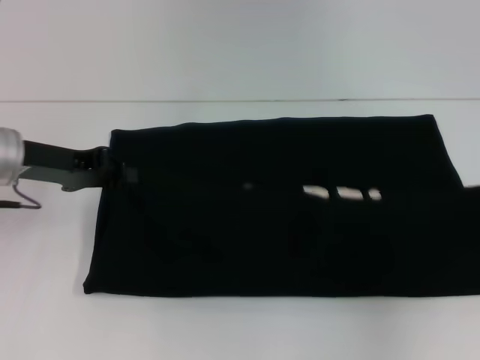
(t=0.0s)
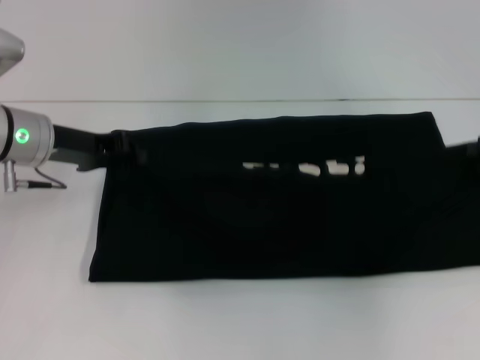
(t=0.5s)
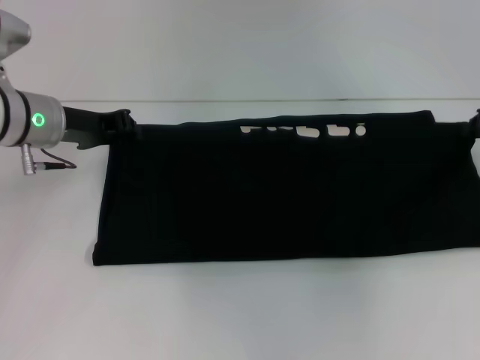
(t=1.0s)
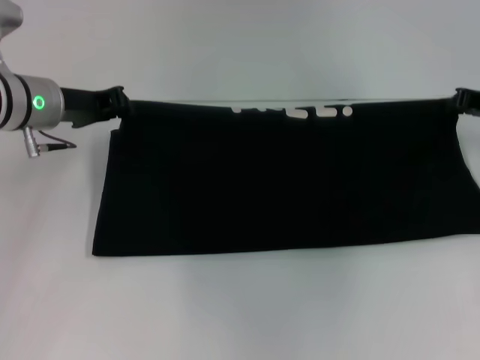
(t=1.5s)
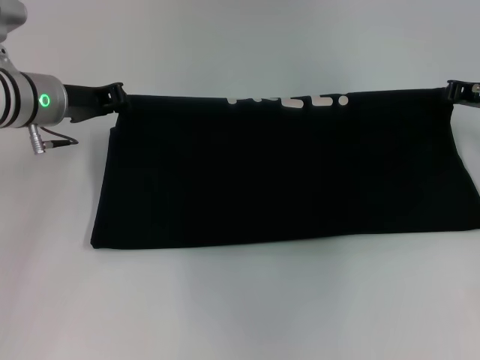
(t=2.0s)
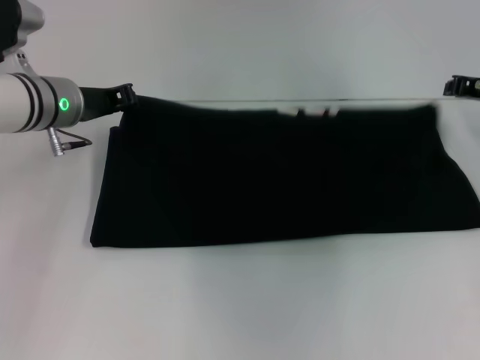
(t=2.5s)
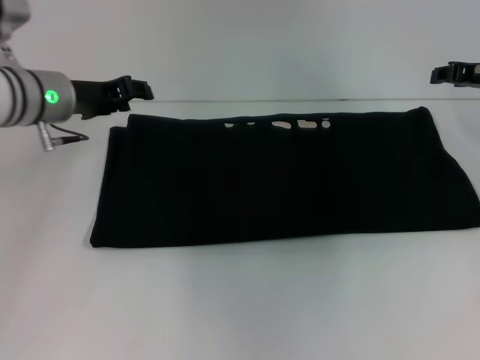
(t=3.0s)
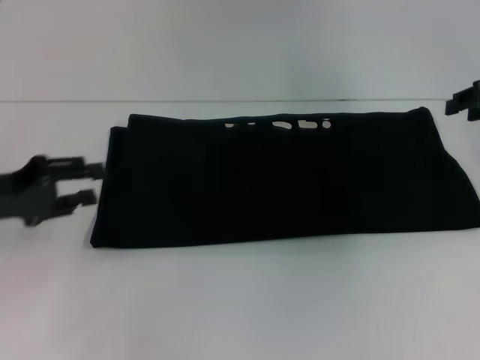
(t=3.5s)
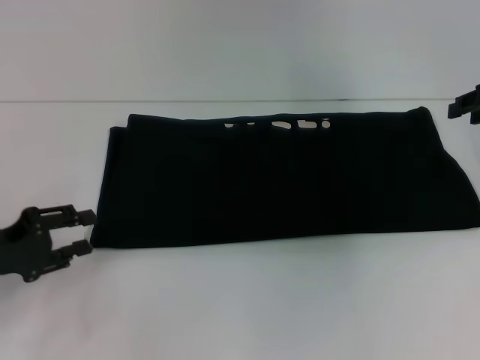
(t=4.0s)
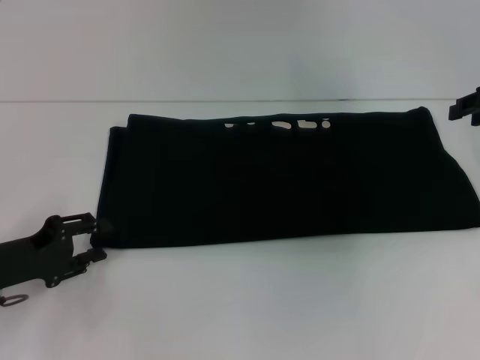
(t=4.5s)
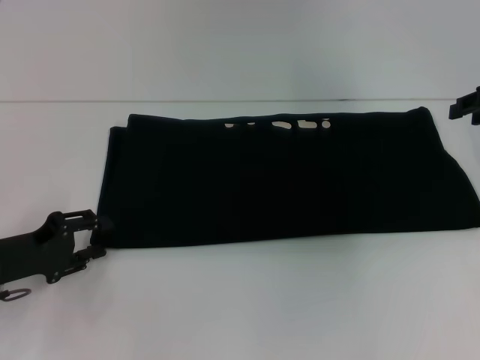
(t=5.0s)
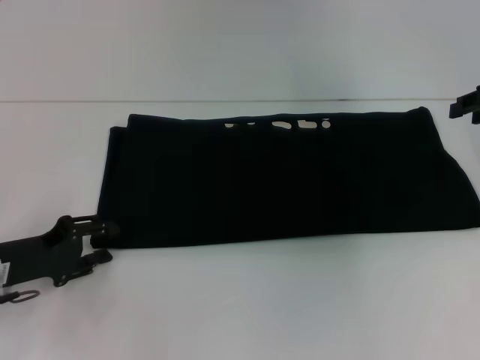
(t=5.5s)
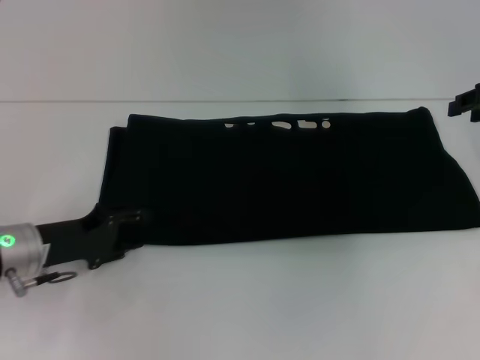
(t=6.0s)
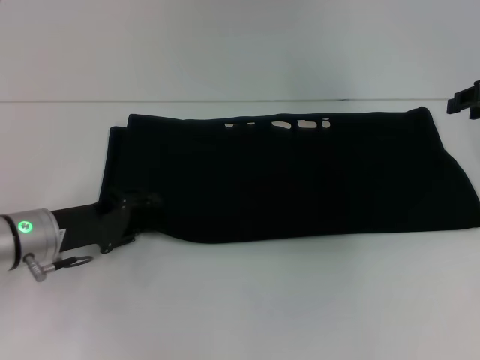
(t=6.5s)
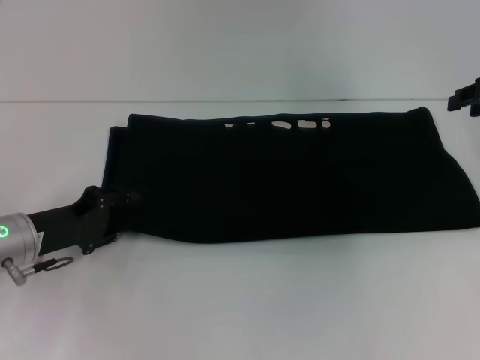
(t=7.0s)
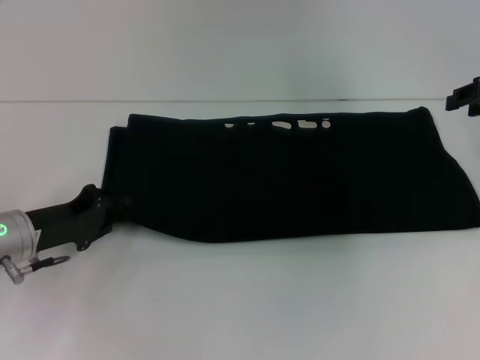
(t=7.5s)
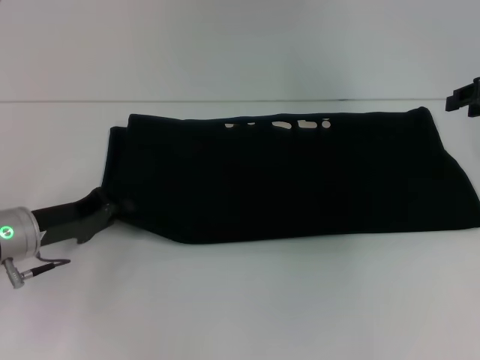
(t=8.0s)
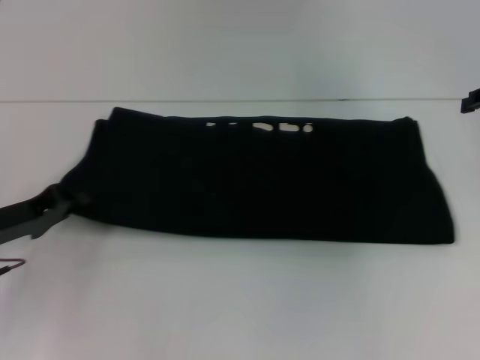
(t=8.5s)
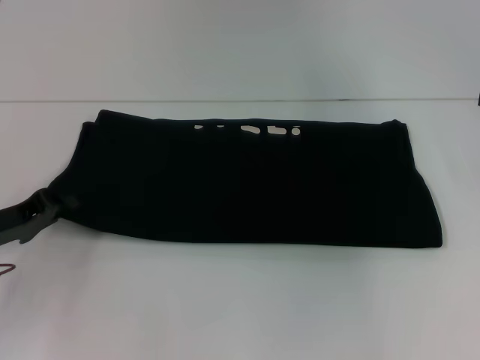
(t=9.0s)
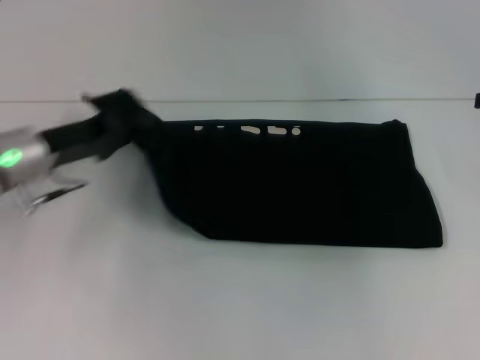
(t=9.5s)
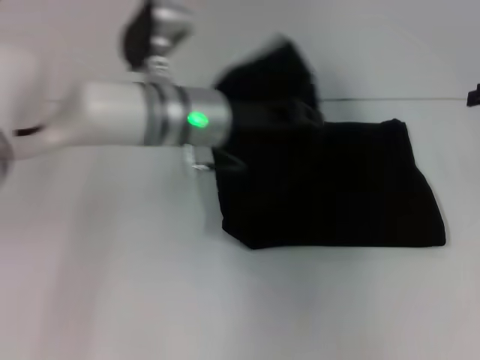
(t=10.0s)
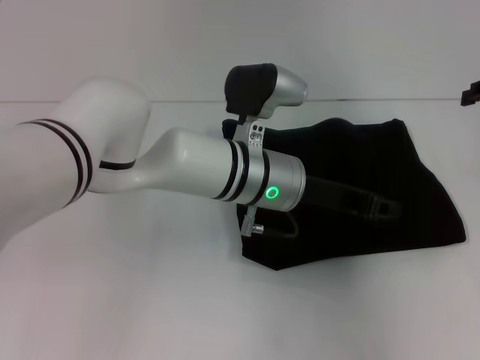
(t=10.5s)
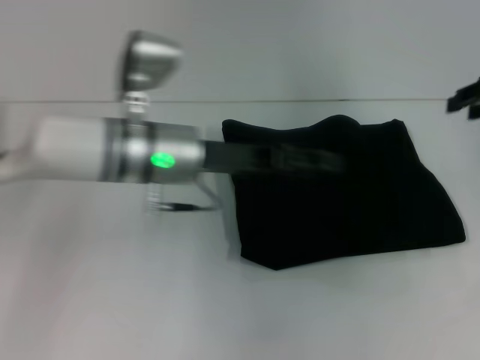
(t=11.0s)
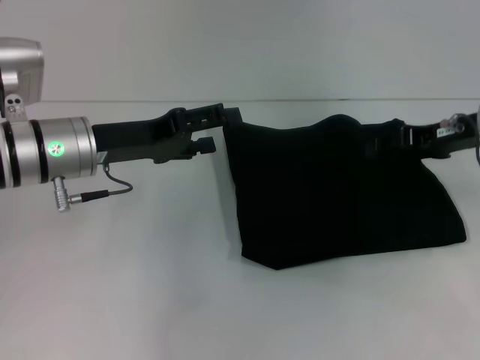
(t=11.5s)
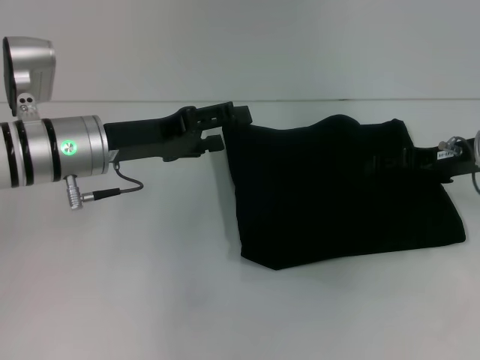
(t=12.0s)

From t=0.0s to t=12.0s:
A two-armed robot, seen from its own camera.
Step, from t=0.0s to t=3.0s: Fold the clothes with your right hand.
Step, from t=0.0s to t=10.5s: Fold the clothes with your left hand.
From t=0.0s to t=2.0s: The right gripper moves forward and to the left, about 15 cm; the left gripper shifts some 5 cm forward.
From t=2.0s to t=4.0s: The left gripper is displaced backward, to the left and downward by roughly 20 cm, and opens. Meanwhile the right gripper shifts by roughly 5 cm, and opens up.
From t=4.0s to t=6.0s: The left gripper goes about 5 cm to the right.
From t=6.0s to t=8.0s: The left gripper closes its fingers.
From t=8.0s to t=10.0s: The left gripper is displaced to the right, upward and forward by about 25 cm.
From t=10.0s to t=12.0s: The left gripper moves to the left, approximately 10 cm, and opens up; the right gripper moves downward and to the left, approximately 10 cm.

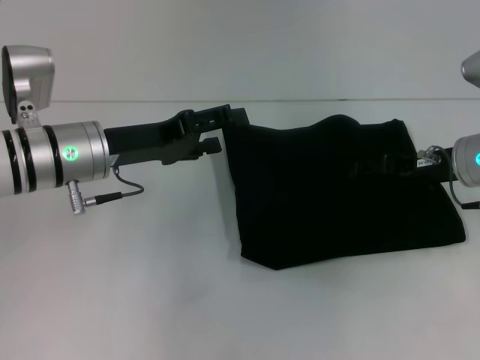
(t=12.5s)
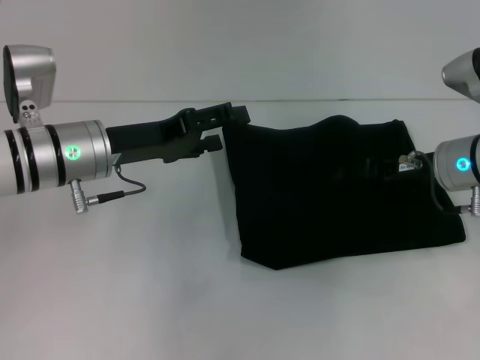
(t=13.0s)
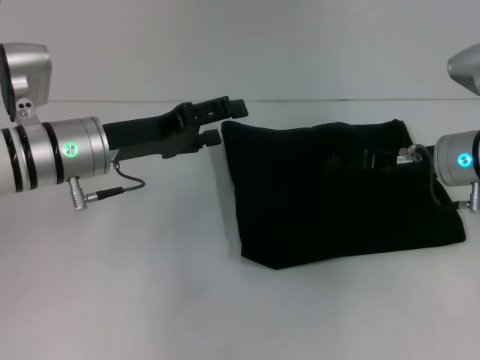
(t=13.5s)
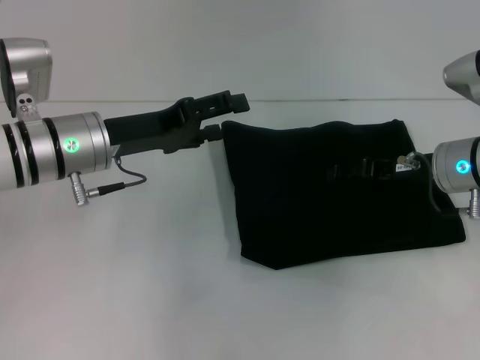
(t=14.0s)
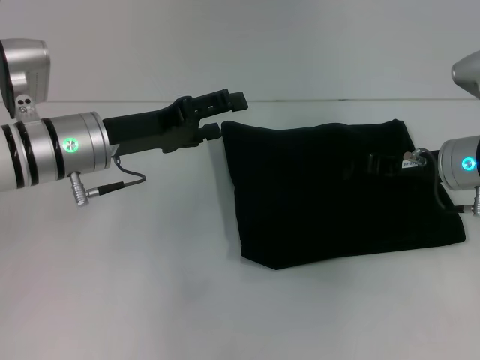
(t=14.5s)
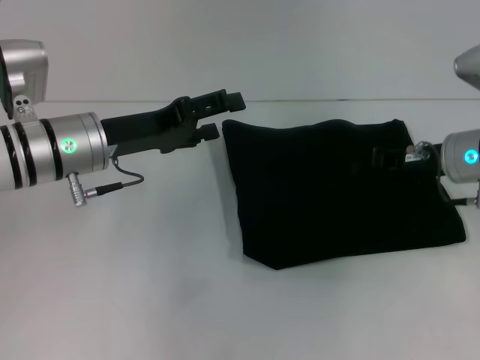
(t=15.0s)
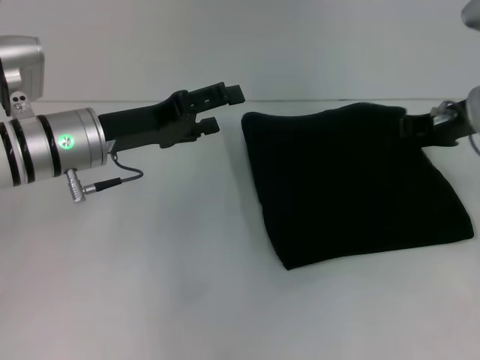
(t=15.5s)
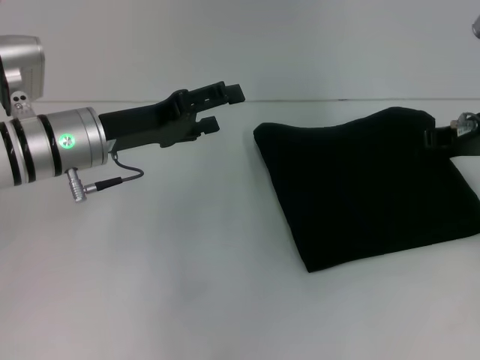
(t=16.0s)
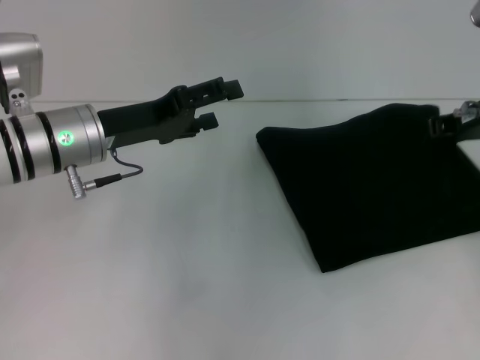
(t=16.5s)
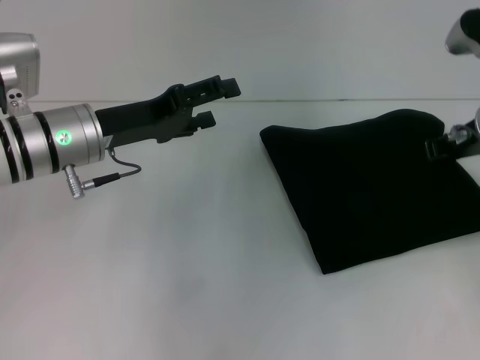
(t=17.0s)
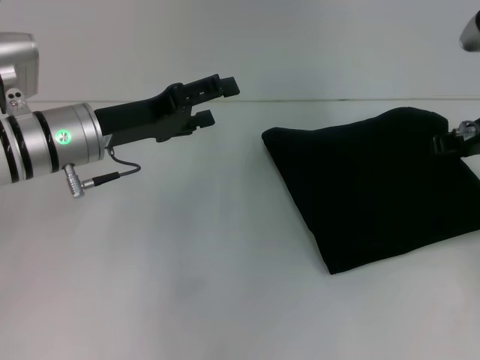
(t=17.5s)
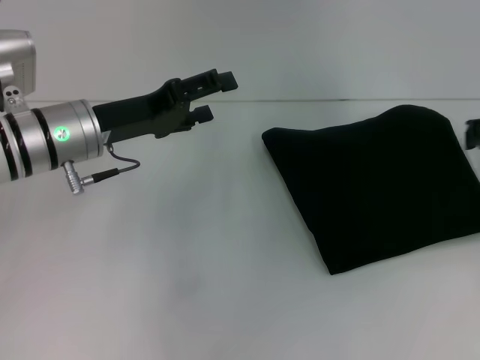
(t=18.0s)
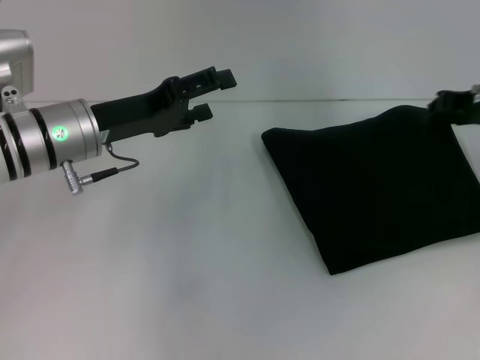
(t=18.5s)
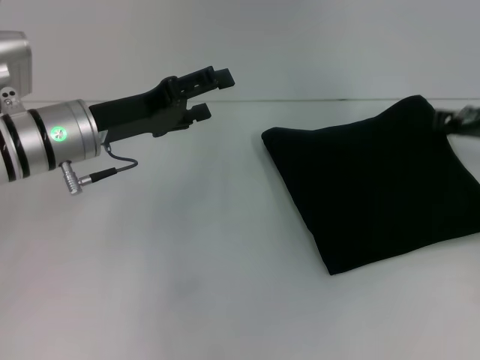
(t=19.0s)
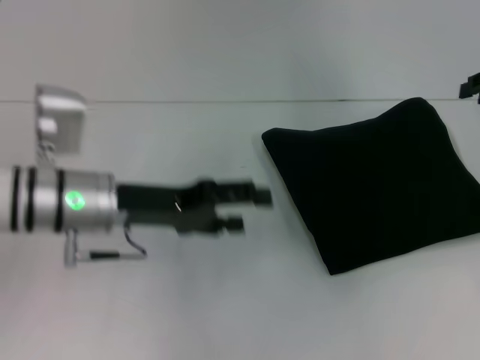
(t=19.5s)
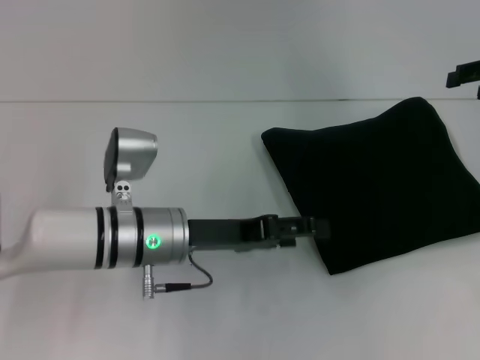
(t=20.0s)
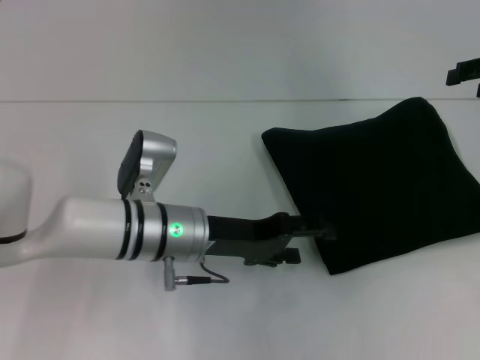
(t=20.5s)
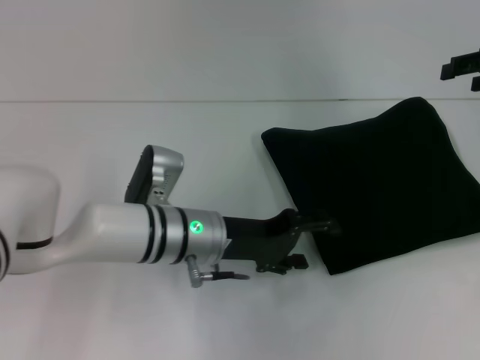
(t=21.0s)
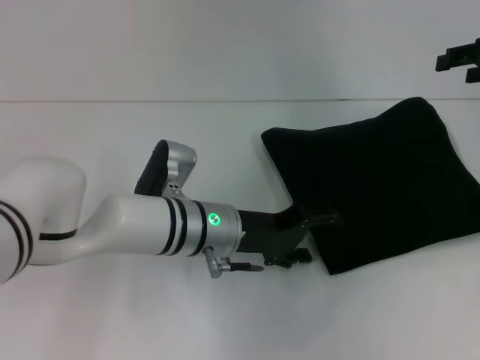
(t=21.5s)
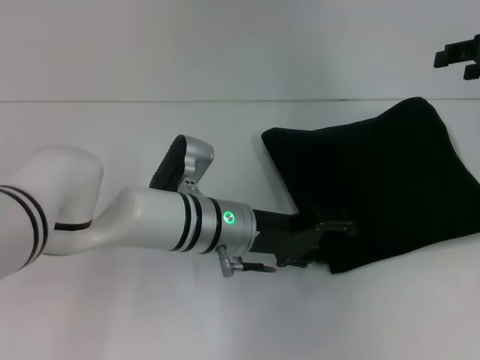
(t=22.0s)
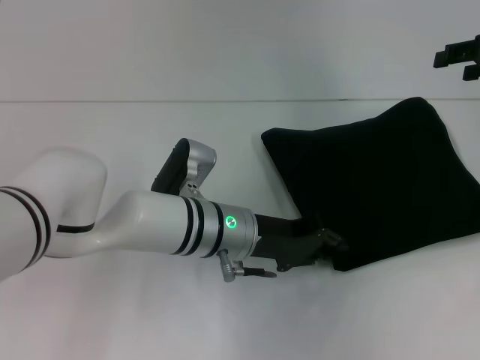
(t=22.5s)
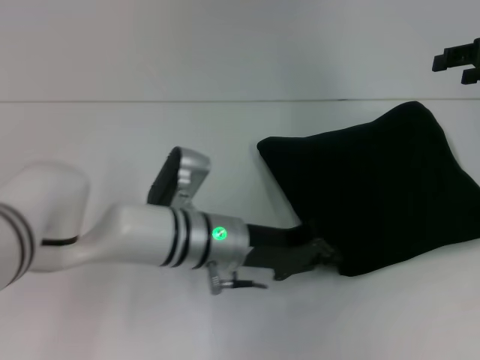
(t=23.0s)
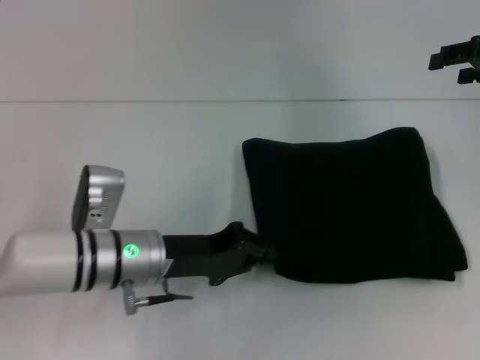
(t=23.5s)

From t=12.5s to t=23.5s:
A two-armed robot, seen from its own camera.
From t=12.5s to t=14.5s: The right gripper closes up.
From t=14.5s to t=16.0s: The right gripper travels upward by about 5 cm.
From t=16.0s to t=18.0s: The grippers make only small movements.
From t=18.0s to t=20.0s: The left gripper goes approximately 10 cm to the right, downward and backward; the right gripper is displaced upward by roughly 5 cm, and opens its fingers.
From t=20.0s to t=21.5s: The left gripper is displaced to the right by about 5 cm.
From t=21.5s to t=23.5s: The left gripper travels to the left by about 10 cm, and closes.

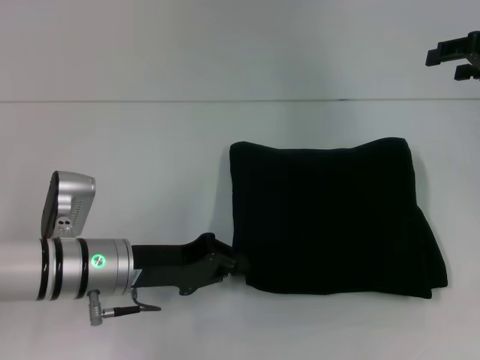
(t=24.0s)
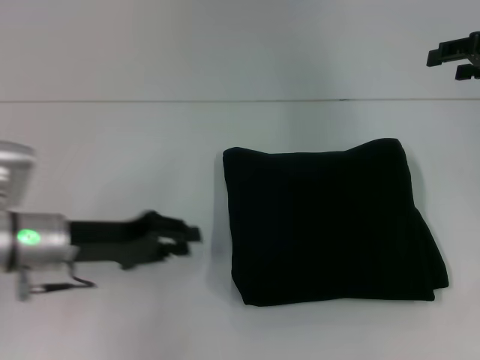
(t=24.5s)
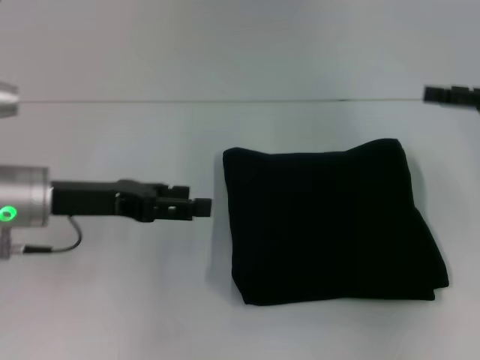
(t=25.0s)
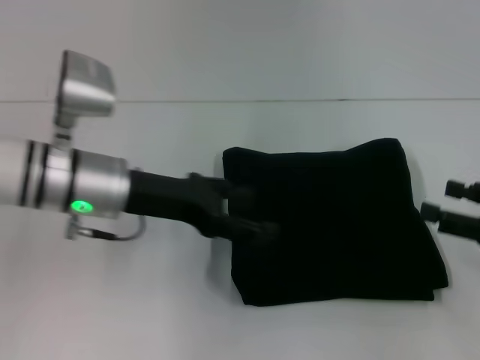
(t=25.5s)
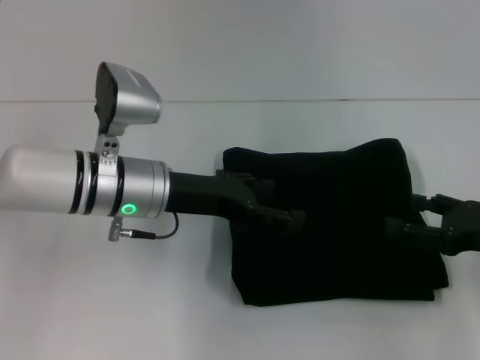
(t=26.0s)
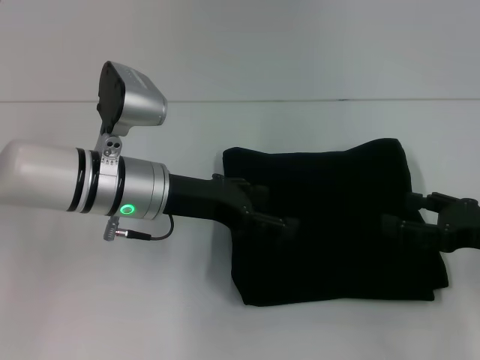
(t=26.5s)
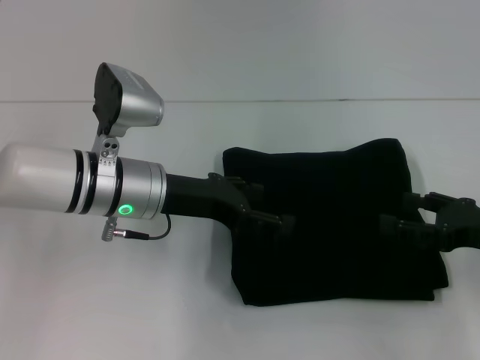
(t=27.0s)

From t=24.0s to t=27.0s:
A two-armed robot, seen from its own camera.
From t=24.0s to t=25.5s: The right gripper goes roughly 20 cm backward and downward, while the left gripper is displaced upward by roughly 10 cm, and opens its fingers.
From t=25.5s to t=27.0s: The grippers stay close to where they were, moving slightly.
